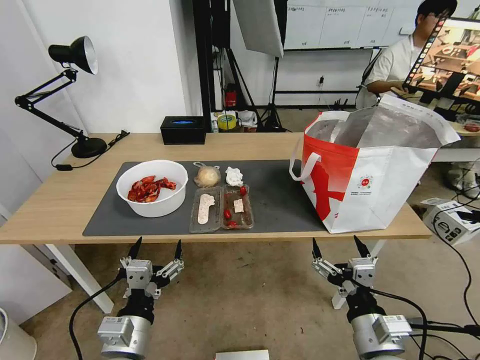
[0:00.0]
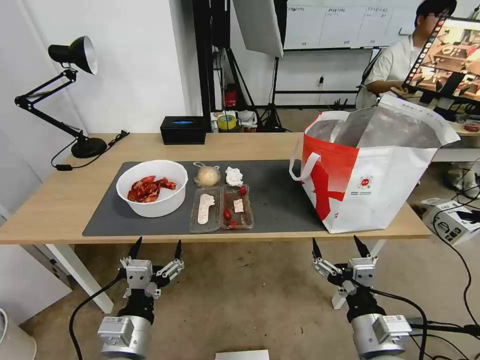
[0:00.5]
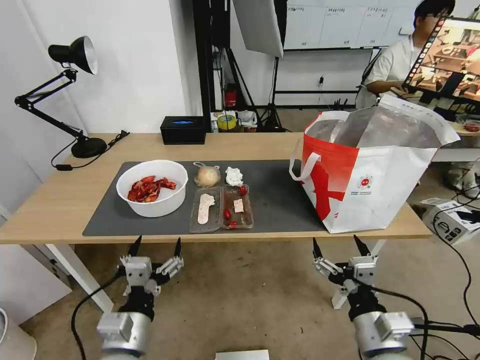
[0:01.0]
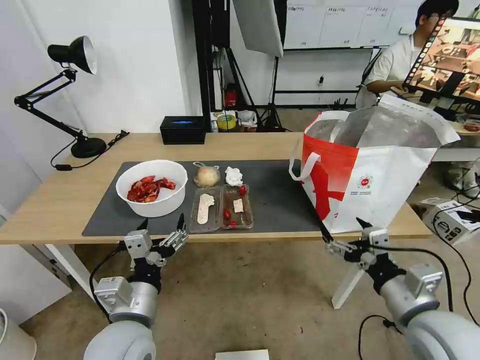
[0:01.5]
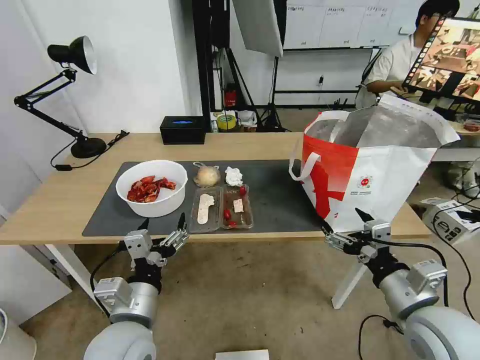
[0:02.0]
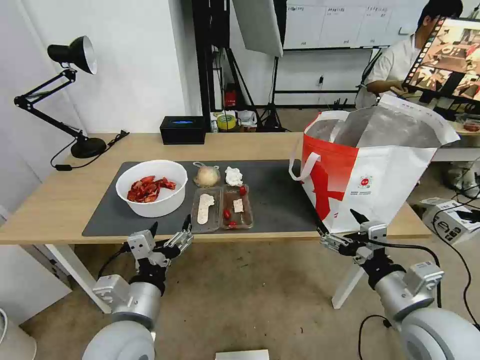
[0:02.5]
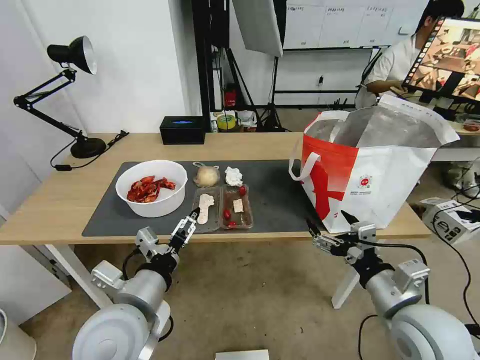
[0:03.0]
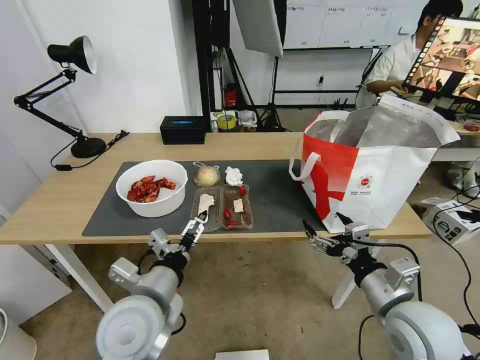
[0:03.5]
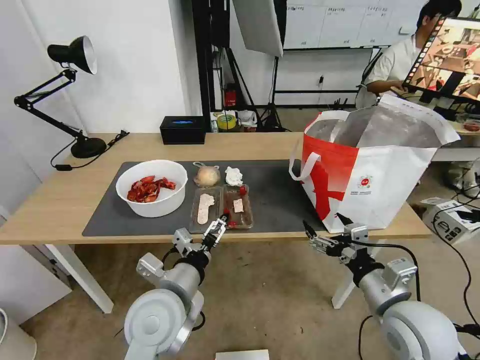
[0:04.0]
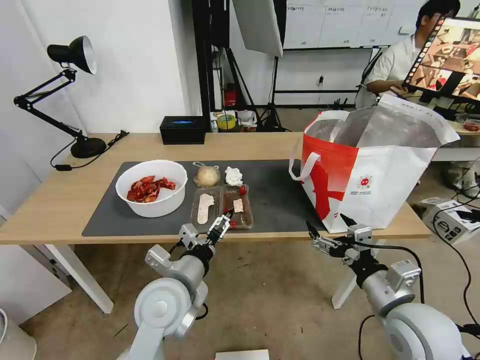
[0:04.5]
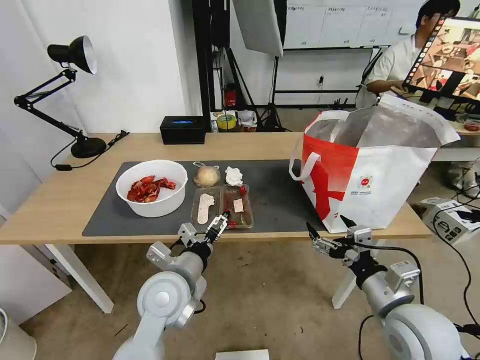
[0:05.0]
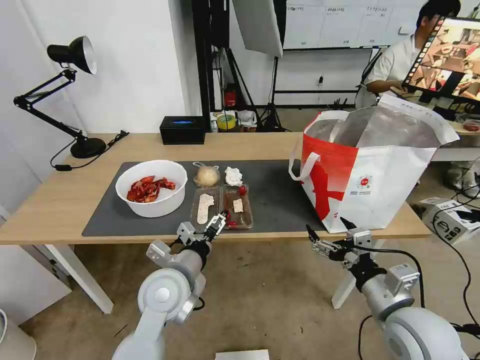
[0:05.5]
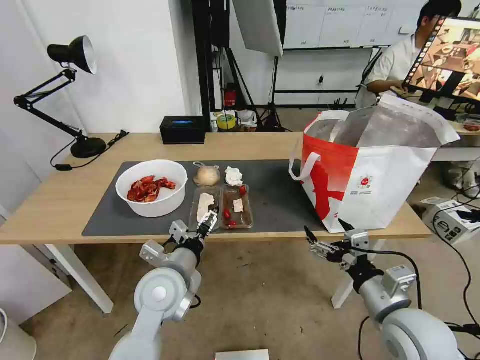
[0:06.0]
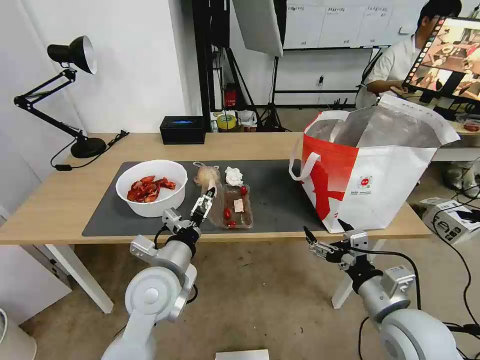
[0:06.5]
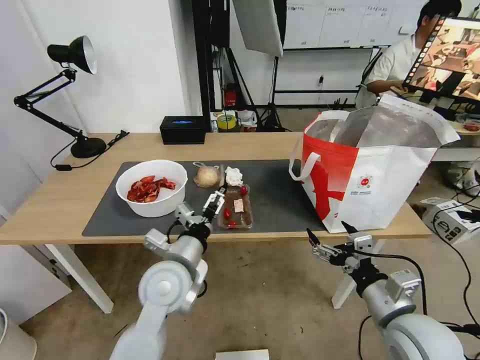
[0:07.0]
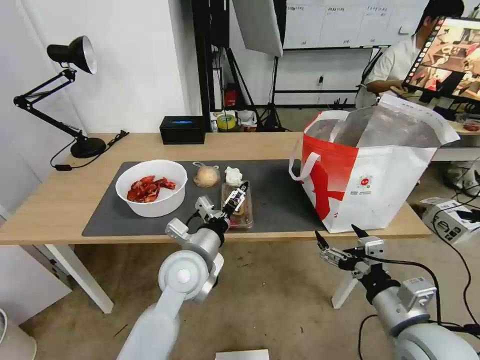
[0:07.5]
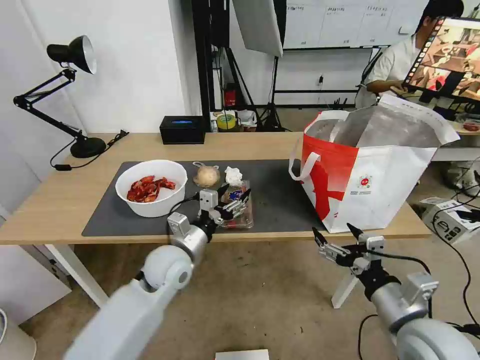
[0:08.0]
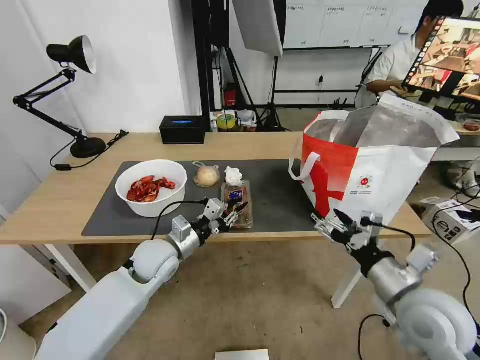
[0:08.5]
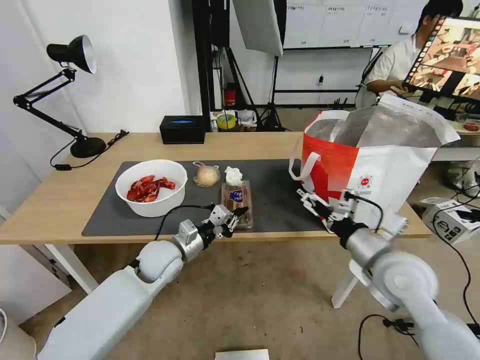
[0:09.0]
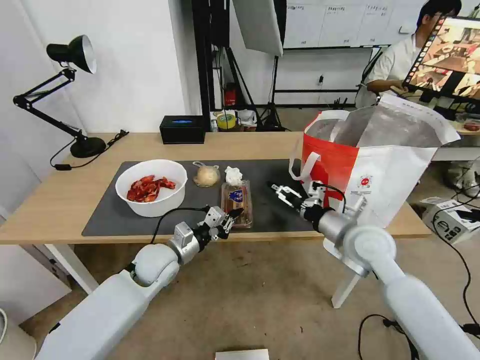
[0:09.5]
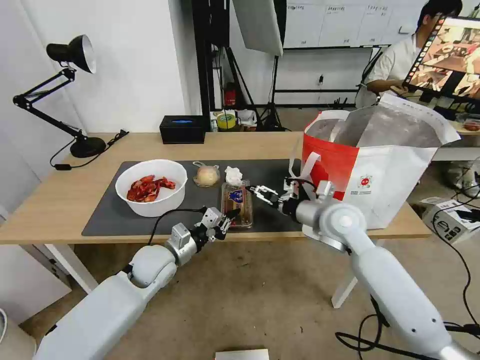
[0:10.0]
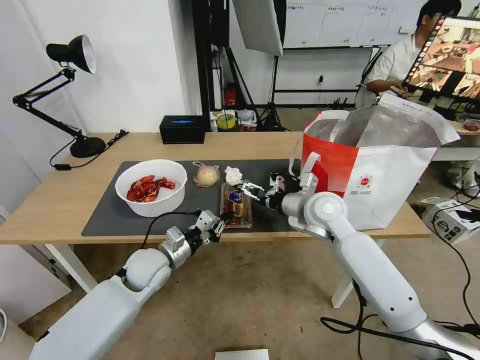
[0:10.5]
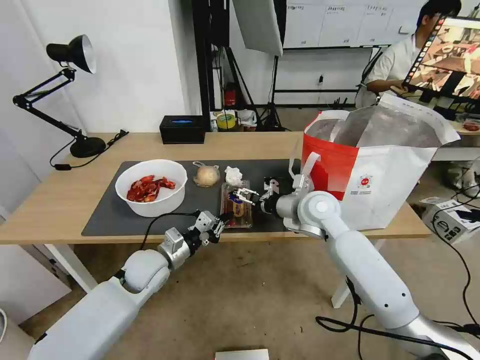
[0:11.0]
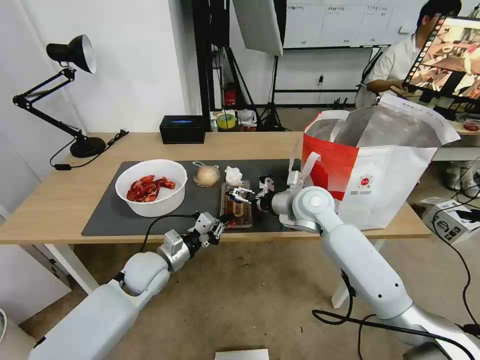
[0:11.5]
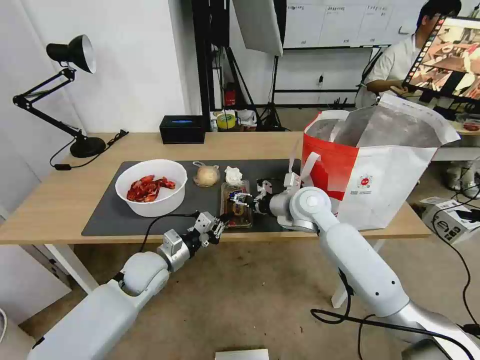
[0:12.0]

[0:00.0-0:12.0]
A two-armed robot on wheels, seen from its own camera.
Task of the whole recording: Pick up the trash from the table and place it into the takeout bag.
0:02.0 to 0:04.0: The left gripper ends up roughly 5 cm from where it was.
0:04.0 to 0:06.0: The left gripper travels forward by some 5 cm.
0:06.0 to 0:08.0: The left gripper heads forward, covering about 5 cm.
0:08.0 to 0:10.0: The left gripper shifts by roughly 5 cm, and closes up. The right gripper goes approximately 25 cm forward.
0:10.0 to 0:12.0: The right gripper moves to the left and forward, roughly 10 cm.

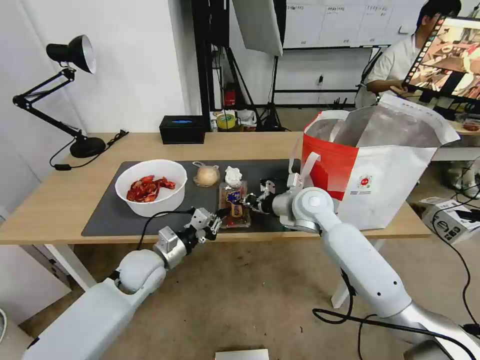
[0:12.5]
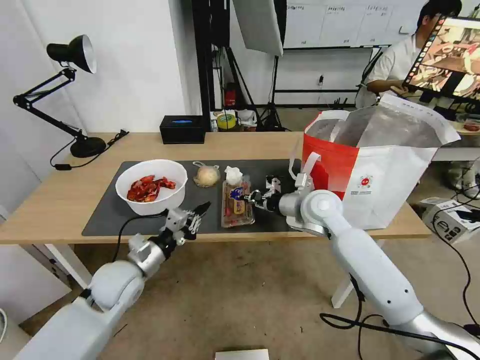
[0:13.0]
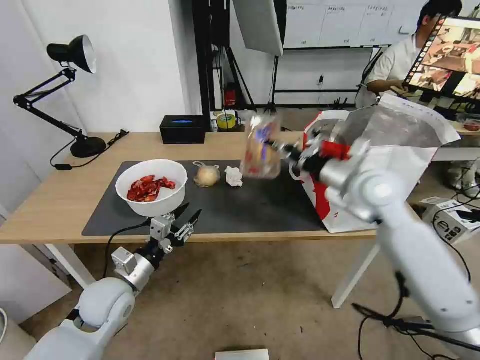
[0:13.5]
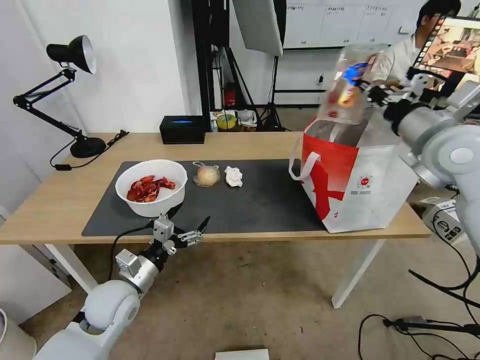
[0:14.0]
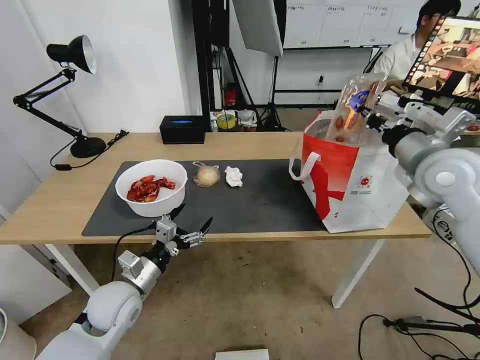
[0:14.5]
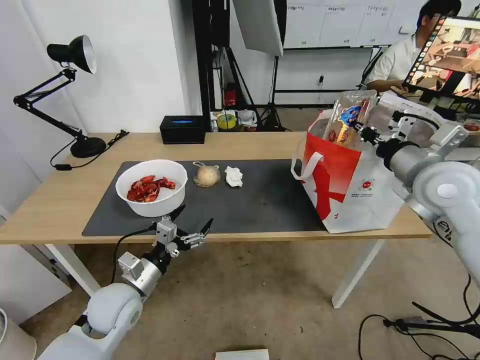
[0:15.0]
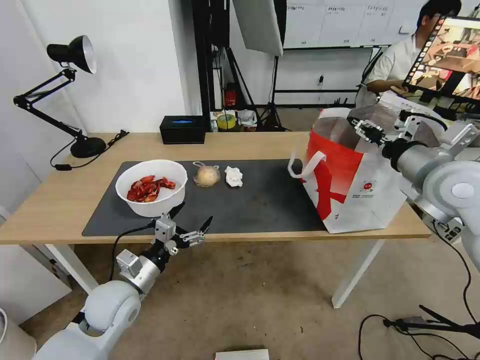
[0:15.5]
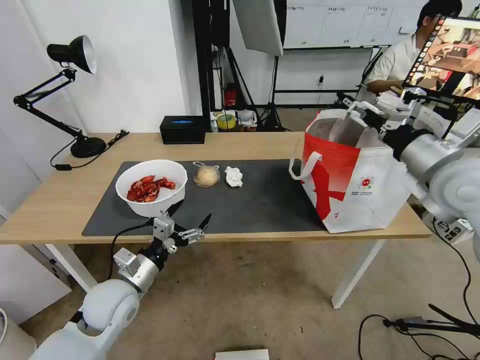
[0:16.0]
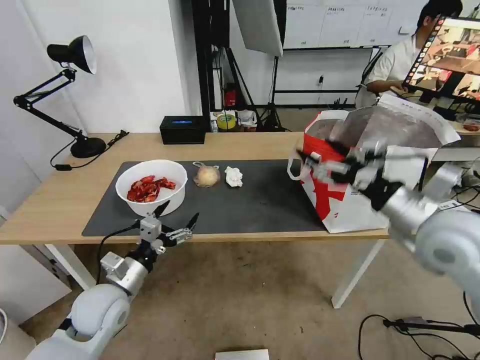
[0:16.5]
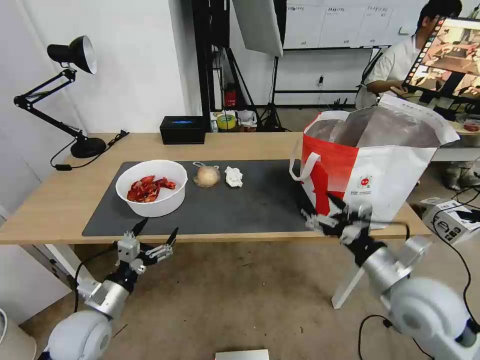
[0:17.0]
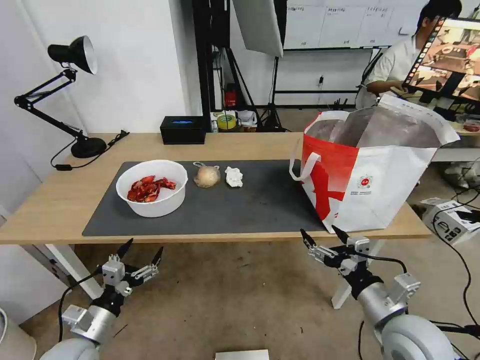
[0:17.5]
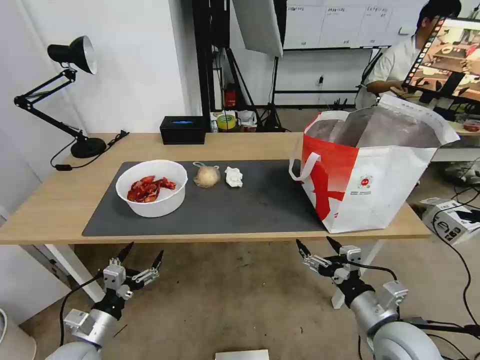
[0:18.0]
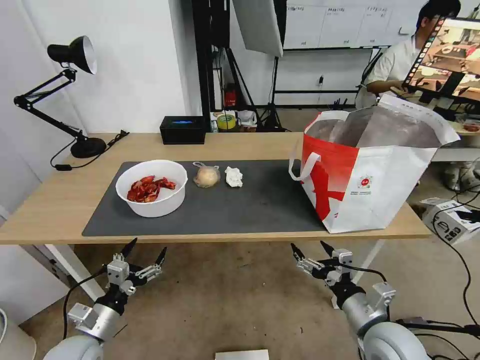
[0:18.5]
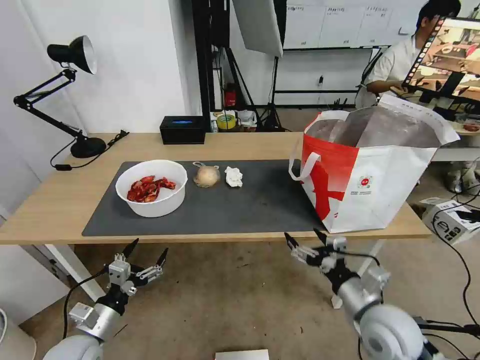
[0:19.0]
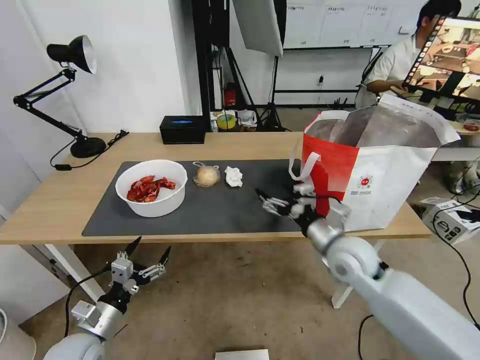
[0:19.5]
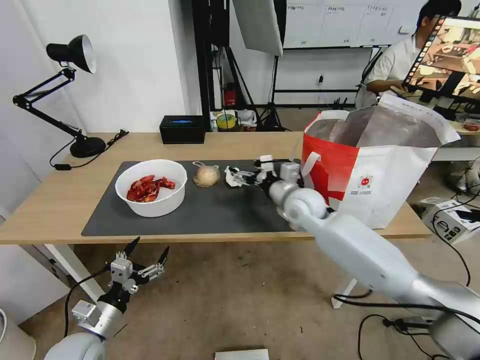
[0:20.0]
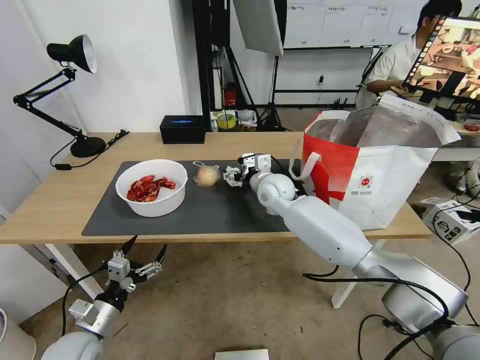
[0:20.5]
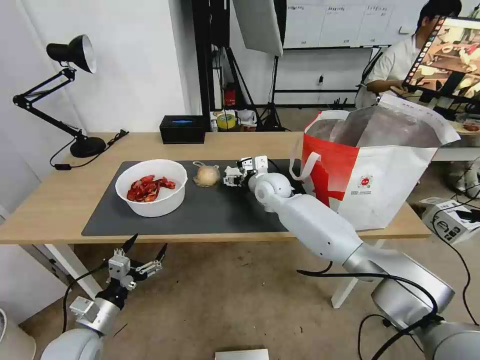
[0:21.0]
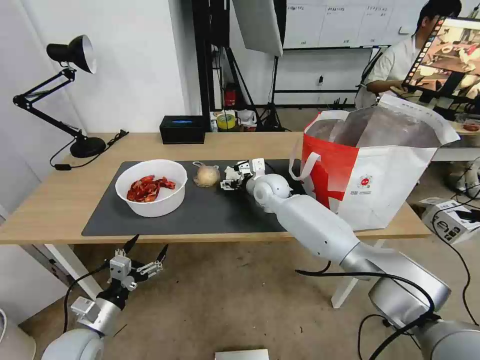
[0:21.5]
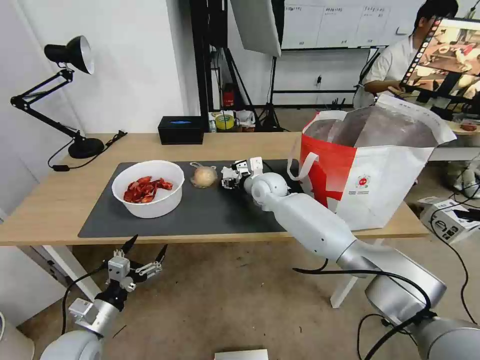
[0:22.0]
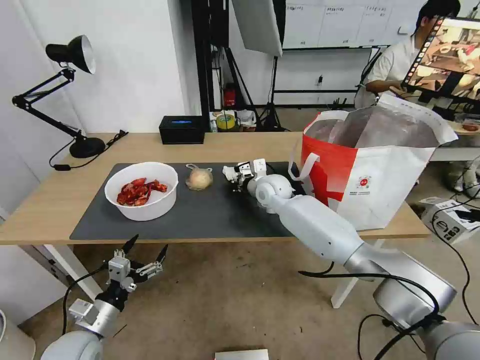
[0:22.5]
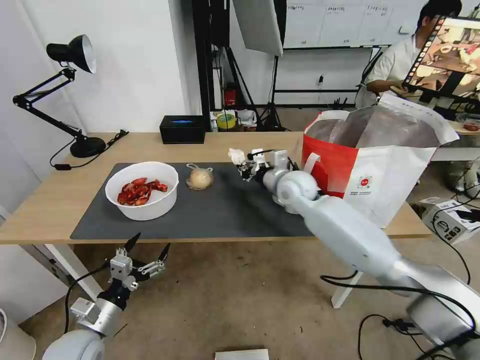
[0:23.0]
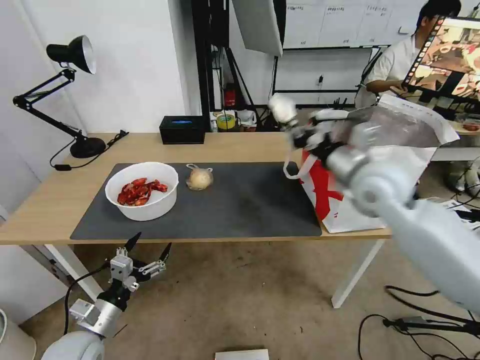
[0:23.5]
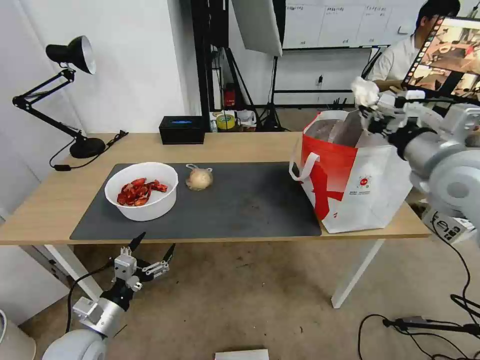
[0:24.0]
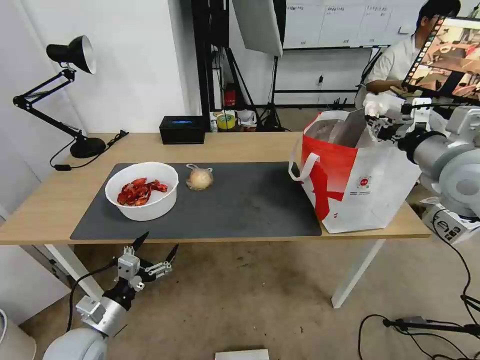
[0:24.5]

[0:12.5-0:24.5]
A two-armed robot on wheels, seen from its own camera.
Task of the whole recording: Pick up the trash from the table and place it into the takeout bag.
0:12.5 to 0:14.5: The right gripper goes some 25 cm to the right and upward; the left gripper travels backward by about 5 cm, and opens its fingers.
0:14.5 to 0:16.5: The right gripper moves backward, some 10 cm, and opens.
0:16.5 to 0:18.5: The right gripper travels downward and backward by approximately 25 cm, while the left gripper goes approximately 10 cm backward, downward and to the left.
0:18.5 to 0:20.5: The right gripper travels forward and to the left by about 40 cm.
0:20.5 to 0:22.5: The right gripper closes its fingers.
0:22.5 to 0:24.5: The right gripper moves to the right, upward and backward, about 40 cm.

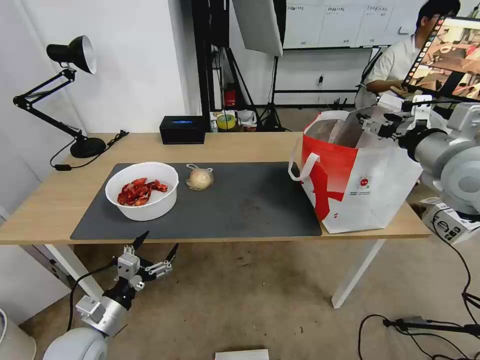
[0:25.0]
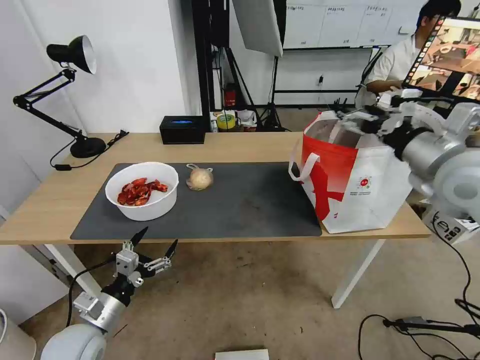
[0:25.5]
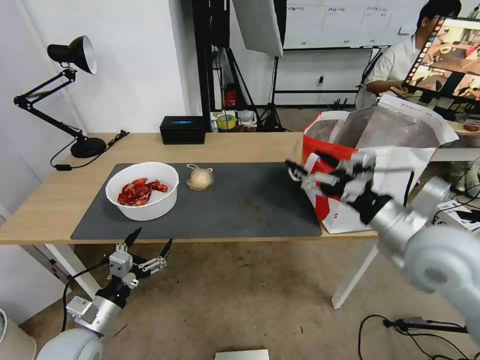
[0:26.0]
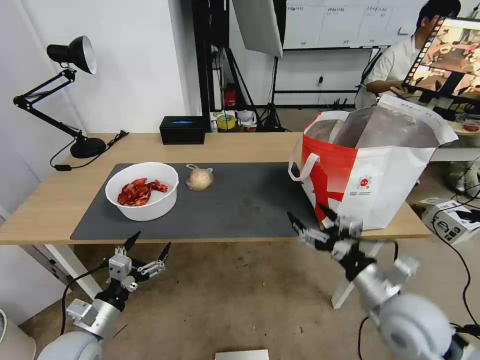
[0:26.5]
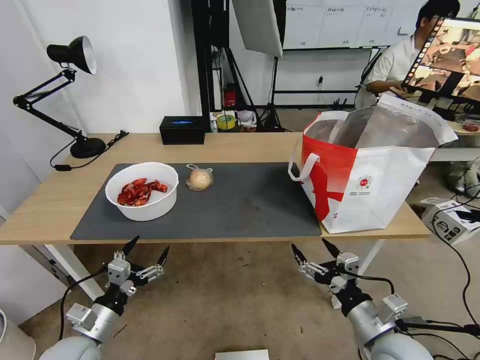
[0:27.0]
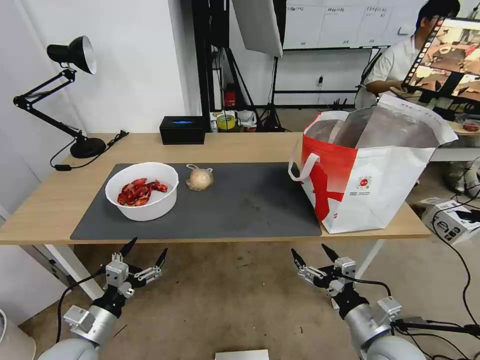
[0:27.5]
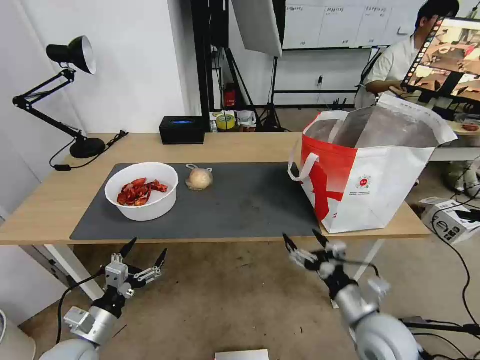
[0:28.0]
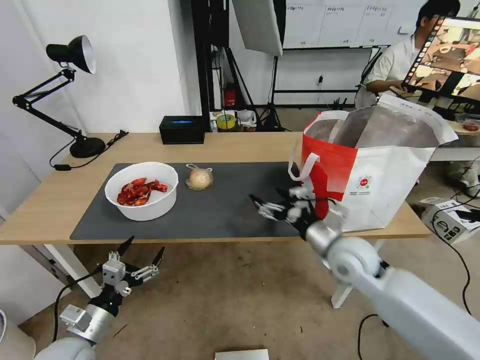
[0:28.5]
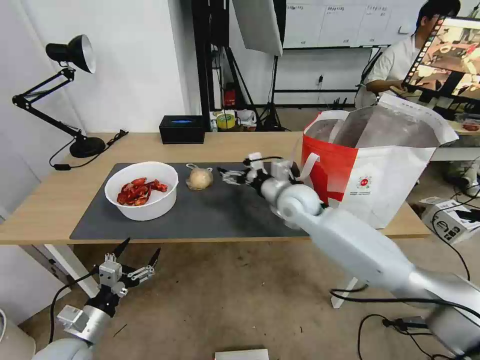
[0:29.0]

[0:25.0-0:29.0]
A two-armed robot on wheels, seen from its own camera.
Task of the whole recording: Pick up the trash from the table and place it into the takeout bag.
0:25.0 to 0:27.0: The right gripper moves downward and backward, some 35 cm.
0:27.0 to 0:29.0: The right gripper goes roughly 35 cm forward and to the left.
